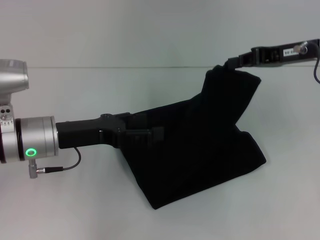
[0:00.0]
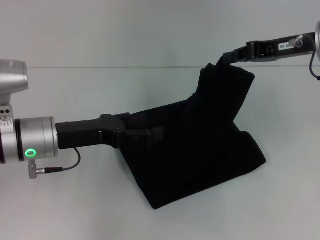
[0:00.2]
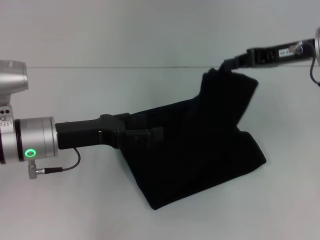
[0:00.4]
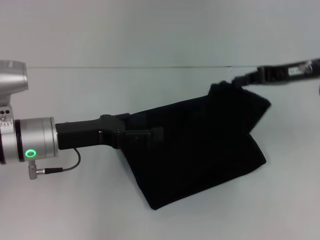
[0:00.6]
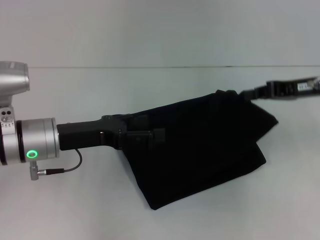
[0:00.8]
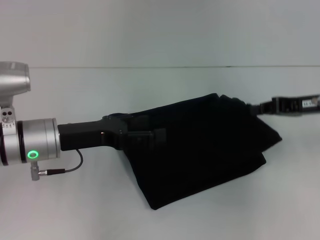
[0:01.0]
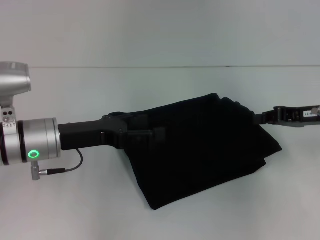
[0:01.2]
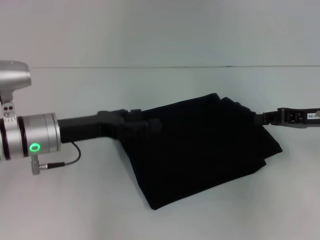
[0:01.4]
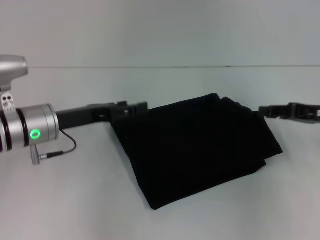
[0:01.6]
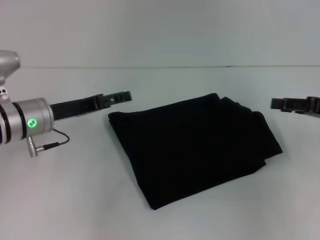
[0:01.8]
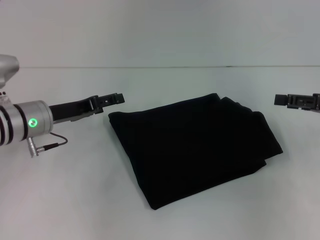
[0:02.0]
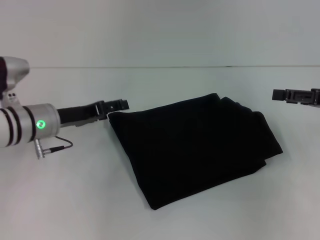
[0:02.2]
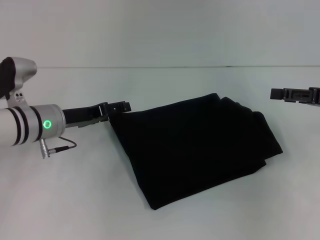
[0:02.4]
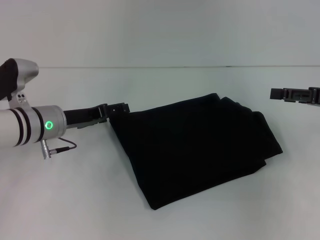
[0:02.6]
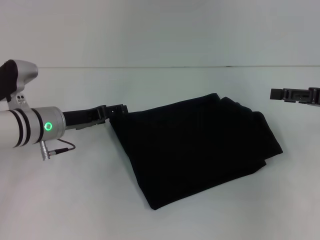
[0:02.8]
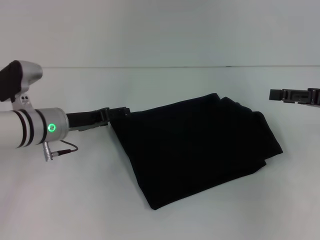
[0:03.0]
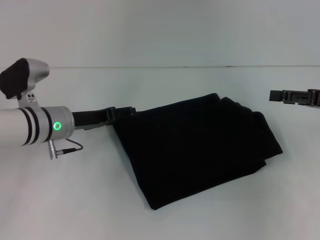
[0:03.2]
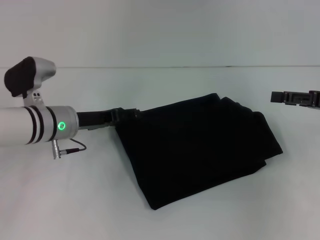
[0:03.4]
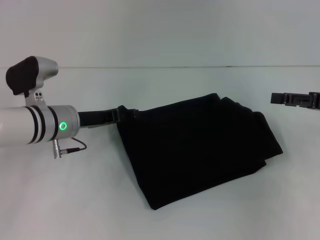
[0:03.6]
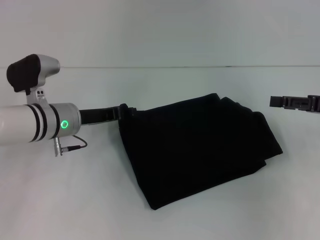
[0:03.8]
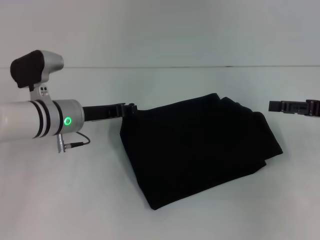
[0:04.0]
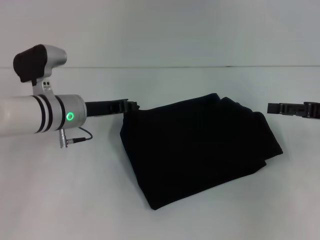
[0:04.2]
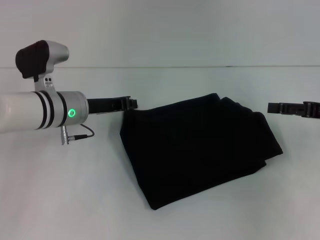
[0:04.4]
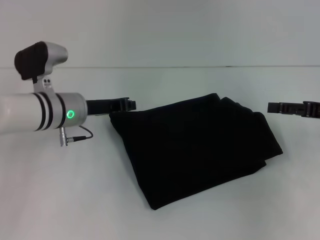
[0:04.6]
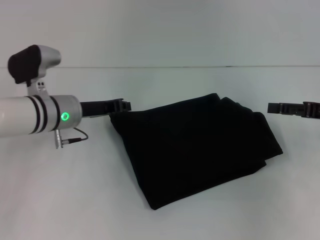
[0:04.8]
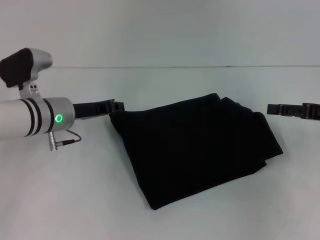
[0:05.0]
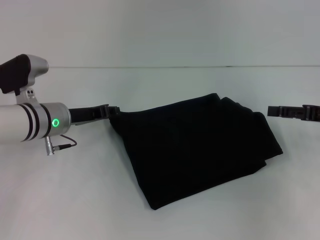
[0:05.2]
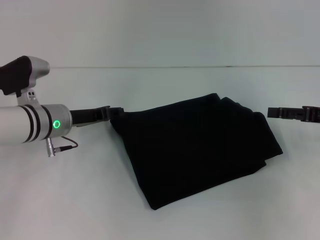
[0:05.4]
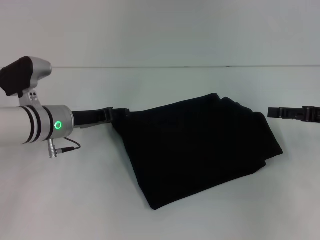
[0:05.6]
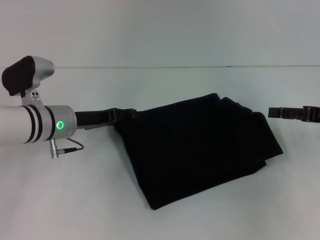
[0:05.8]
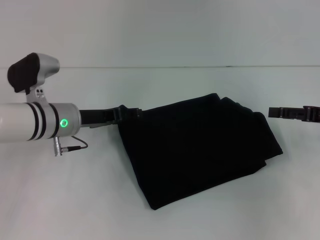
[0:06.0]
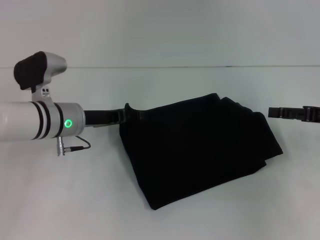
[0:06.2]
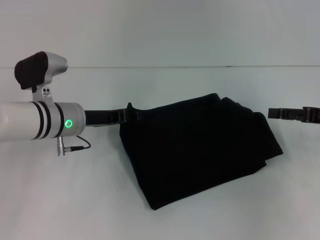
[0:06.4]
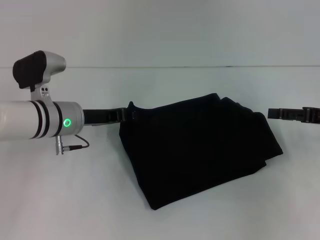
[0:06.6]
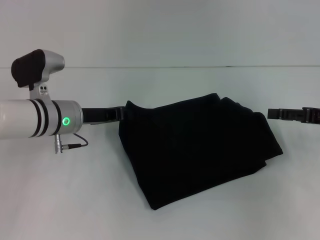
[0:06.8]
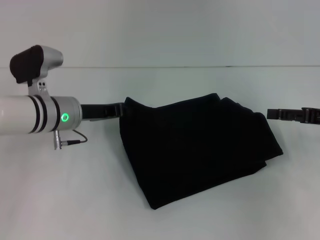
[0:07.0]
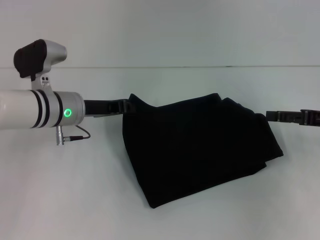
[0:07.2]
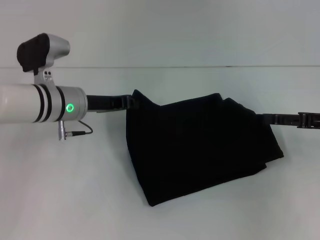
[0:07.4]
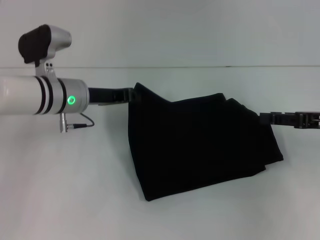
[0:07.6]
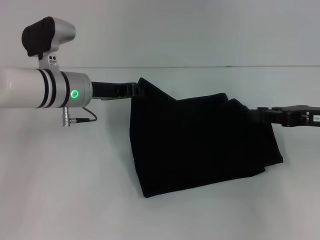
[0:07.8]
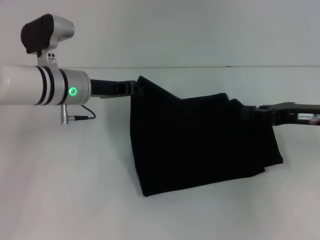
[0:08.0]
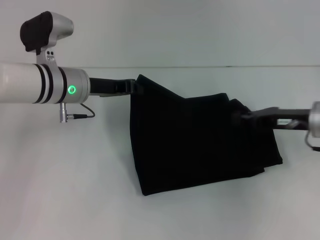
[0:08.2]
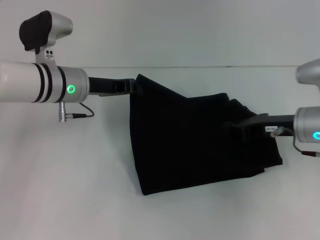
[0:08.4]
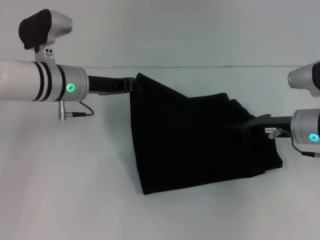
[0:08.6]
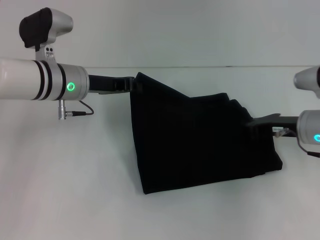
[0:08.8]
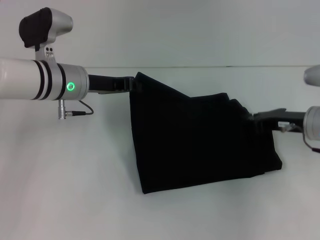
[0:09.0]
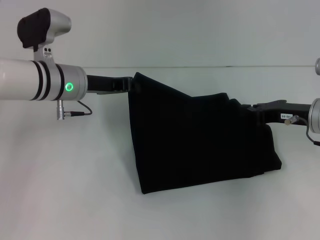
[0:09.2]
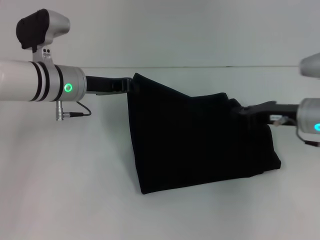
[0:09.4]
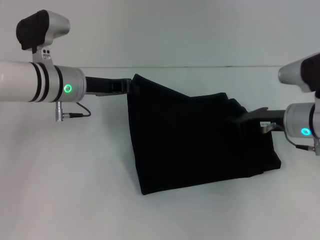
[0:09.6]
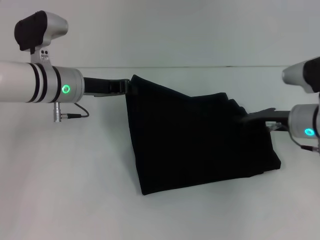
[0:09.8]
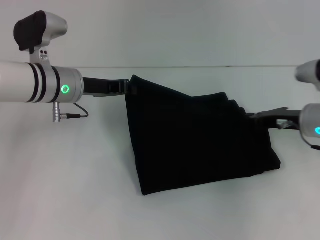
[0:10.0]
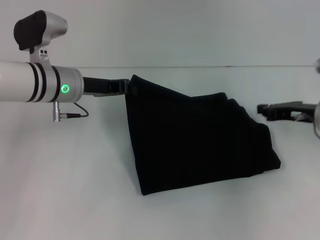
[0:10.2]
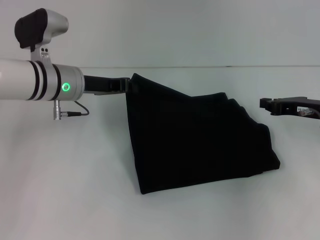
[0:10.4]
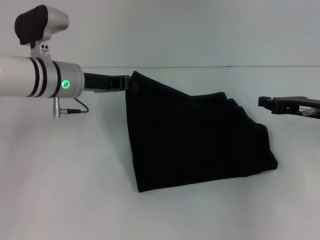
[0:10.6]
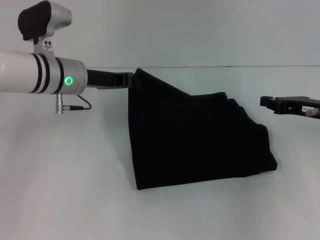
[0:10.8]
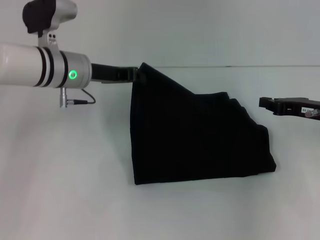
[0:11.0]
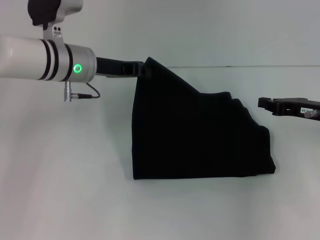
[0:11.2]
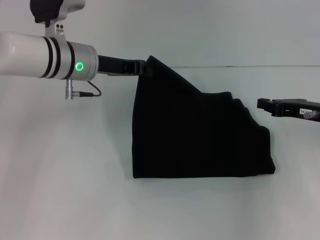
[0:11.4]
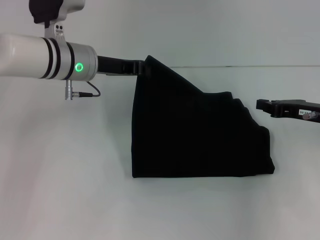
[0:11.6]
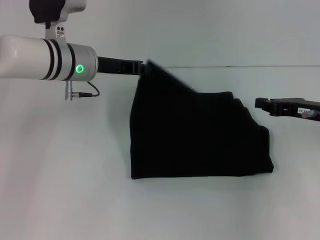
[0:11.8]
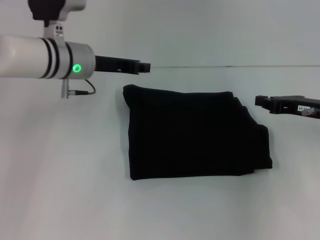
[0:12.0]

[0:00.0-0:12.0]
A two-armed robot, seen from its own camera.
0:00.0 to 0:01.6: The right gripper travels downward, to the right and backward by roughly 10 cm.
0:01.6 to 0:03.0: The right gripper opens up.
0:03.0 to 0:04.4: The left gripper closes up.
0:04.4 to 0:06.0: The left gripper opens its fingers.
0:06.0 to 0:07.6: The left gripper closes up.
0:07.6 to 0:09.0: The right gripper goes some 5 cm to the left, and closes up.
0:09.0 to 0:12.0: The grippers move only a little.

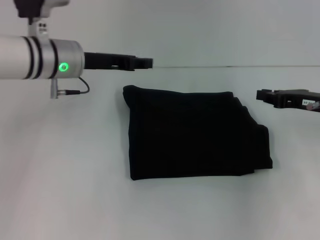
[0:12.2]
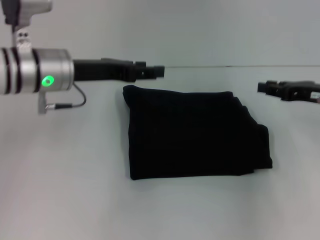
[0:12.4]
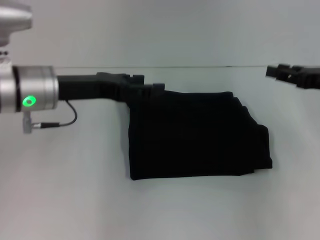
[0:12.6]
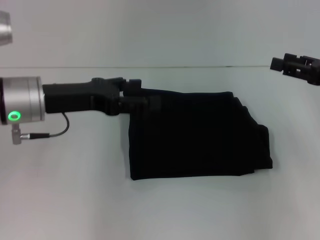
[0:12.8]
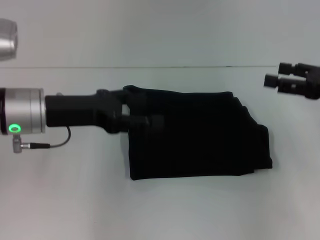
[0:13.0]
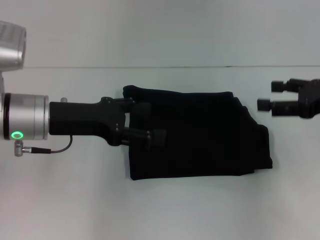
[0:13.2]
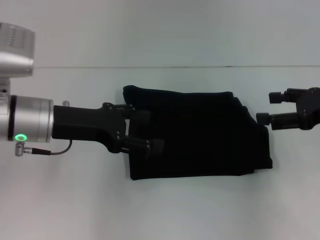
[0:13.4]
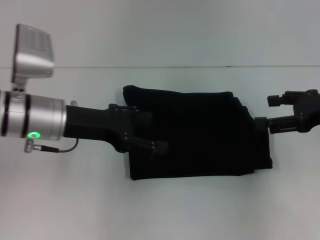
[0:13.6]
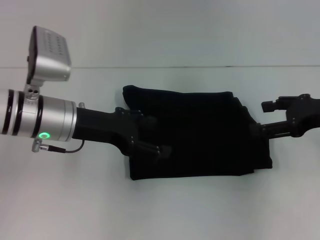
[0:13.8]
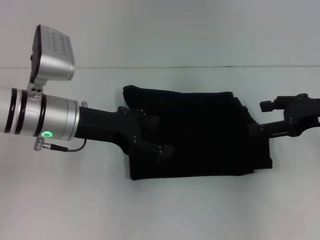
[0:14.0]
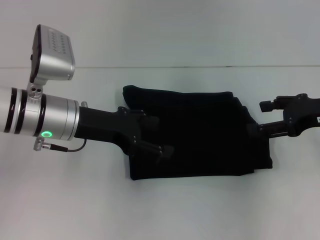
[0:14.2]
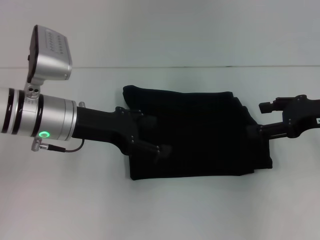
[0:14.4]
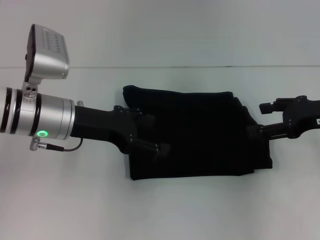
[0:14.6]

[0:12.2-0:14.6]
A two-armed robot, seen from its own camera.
0:12.2 to 0:13.4: The right gripper is displaced upward by about 5 cm, and opens up. The left gripper shifts approximately 10 cm backward, and opens up.
0:13.4 to 0:14.6: The grippers move only a little.
